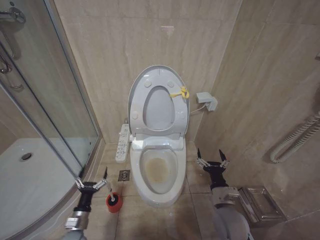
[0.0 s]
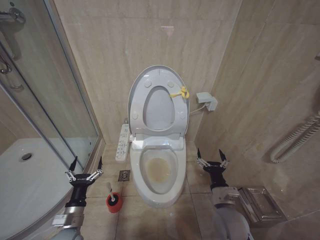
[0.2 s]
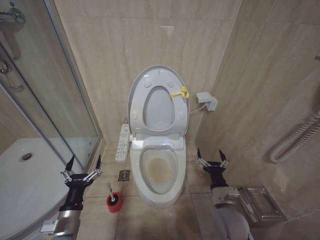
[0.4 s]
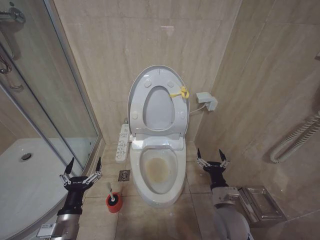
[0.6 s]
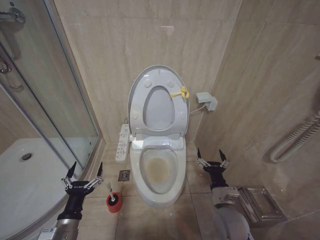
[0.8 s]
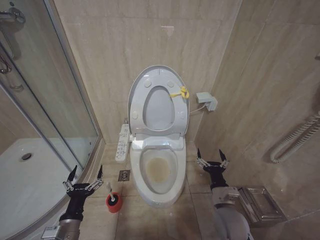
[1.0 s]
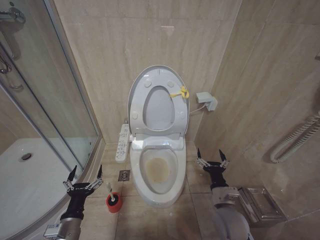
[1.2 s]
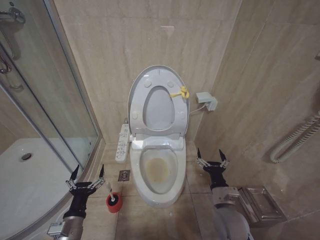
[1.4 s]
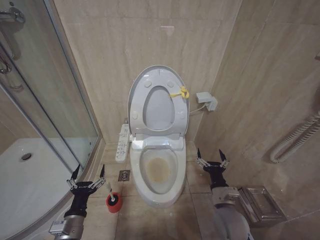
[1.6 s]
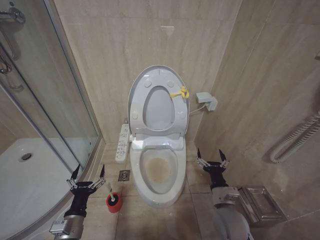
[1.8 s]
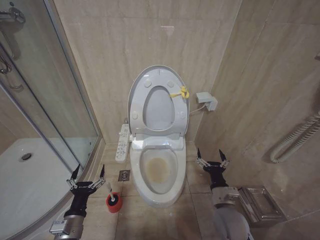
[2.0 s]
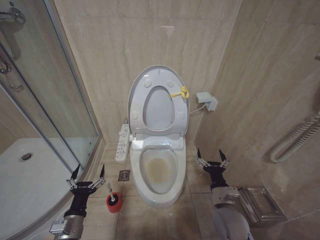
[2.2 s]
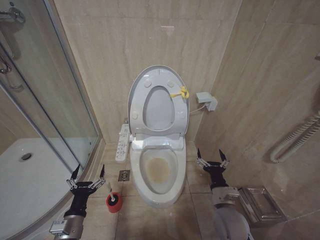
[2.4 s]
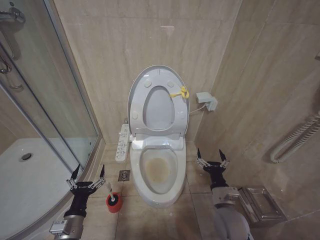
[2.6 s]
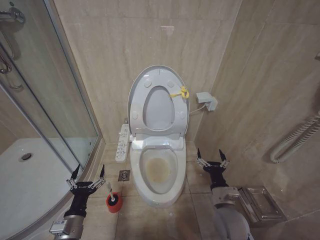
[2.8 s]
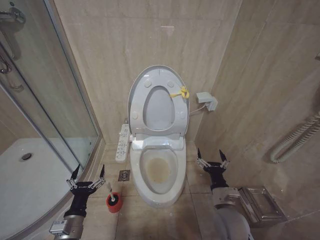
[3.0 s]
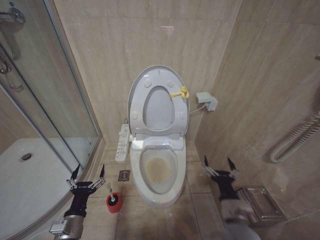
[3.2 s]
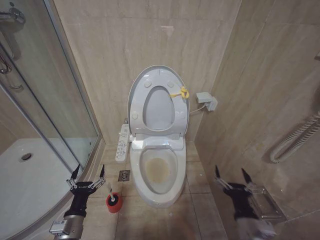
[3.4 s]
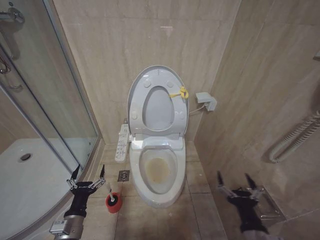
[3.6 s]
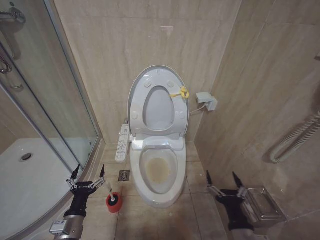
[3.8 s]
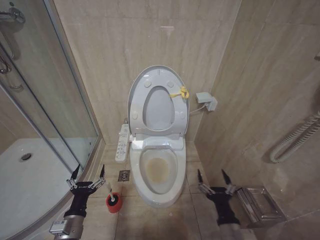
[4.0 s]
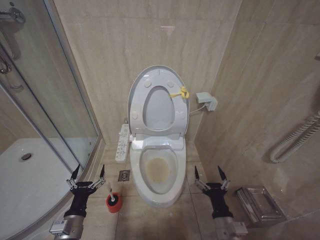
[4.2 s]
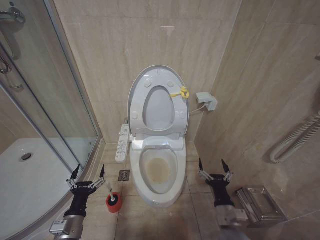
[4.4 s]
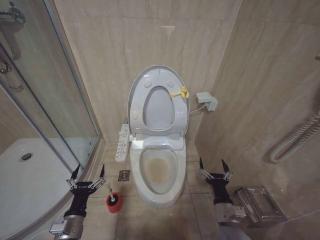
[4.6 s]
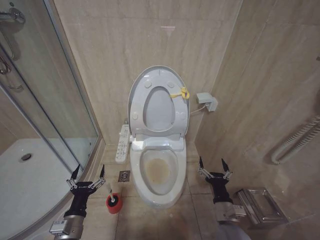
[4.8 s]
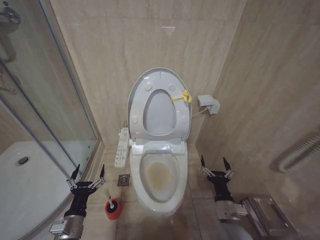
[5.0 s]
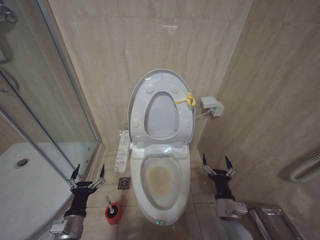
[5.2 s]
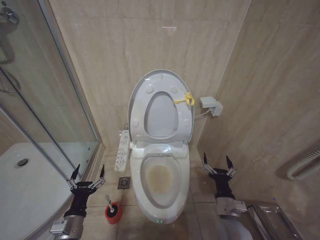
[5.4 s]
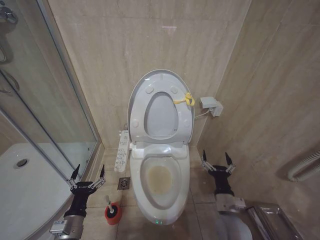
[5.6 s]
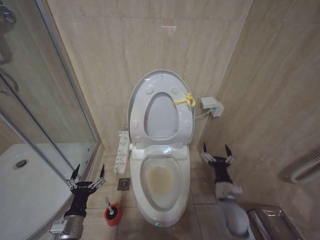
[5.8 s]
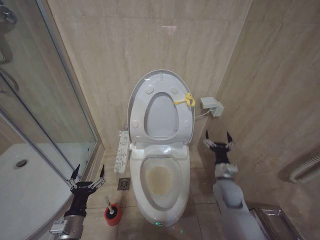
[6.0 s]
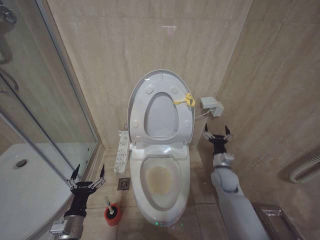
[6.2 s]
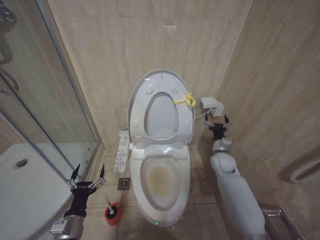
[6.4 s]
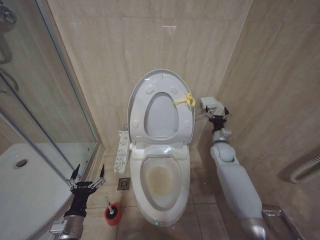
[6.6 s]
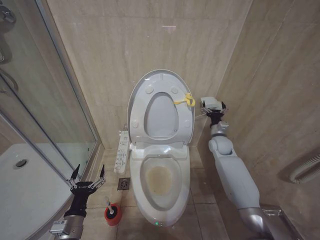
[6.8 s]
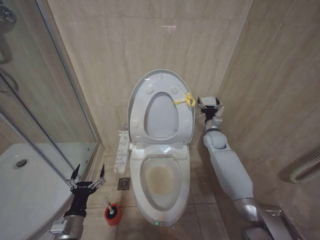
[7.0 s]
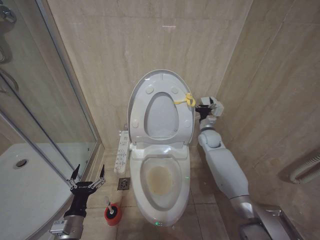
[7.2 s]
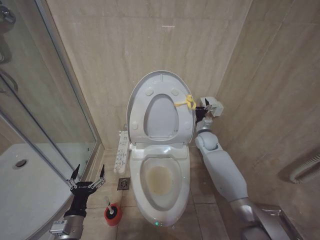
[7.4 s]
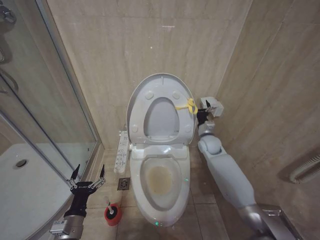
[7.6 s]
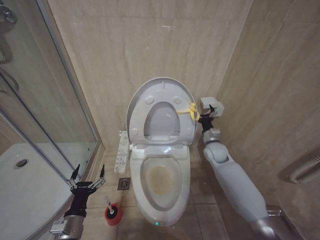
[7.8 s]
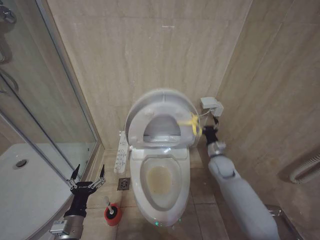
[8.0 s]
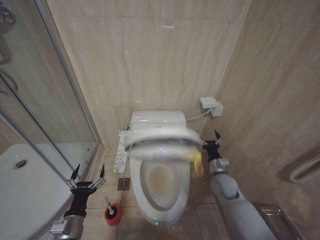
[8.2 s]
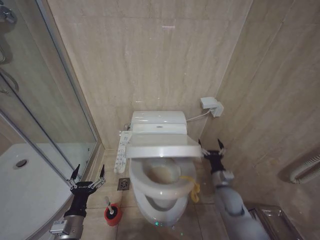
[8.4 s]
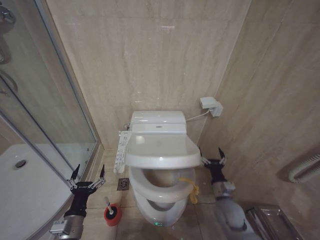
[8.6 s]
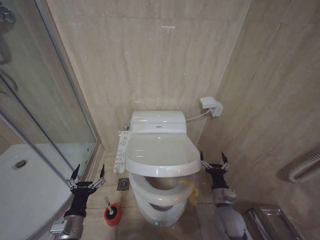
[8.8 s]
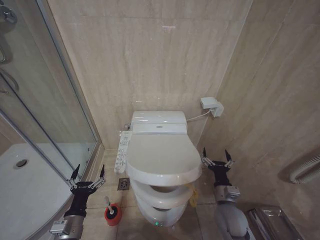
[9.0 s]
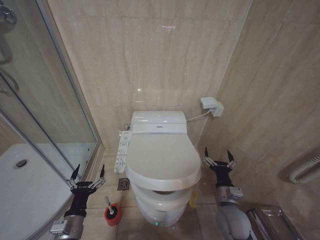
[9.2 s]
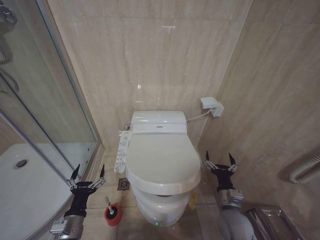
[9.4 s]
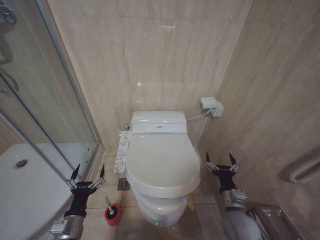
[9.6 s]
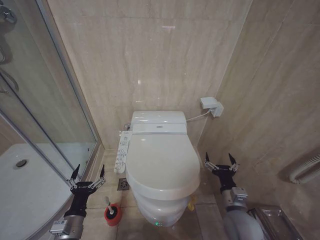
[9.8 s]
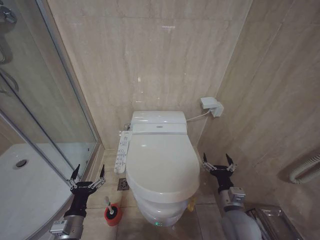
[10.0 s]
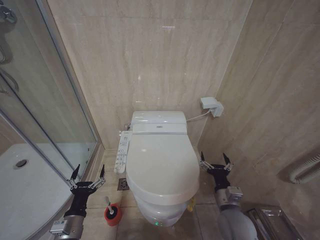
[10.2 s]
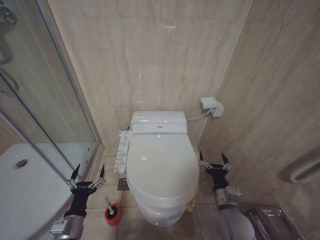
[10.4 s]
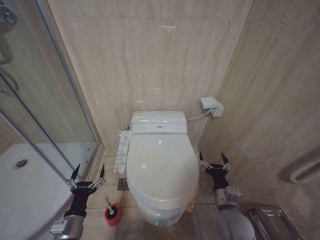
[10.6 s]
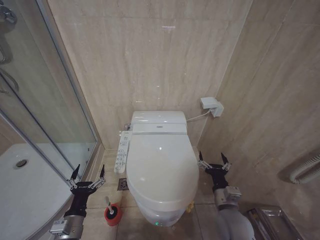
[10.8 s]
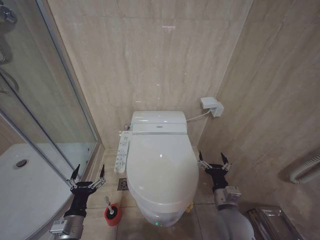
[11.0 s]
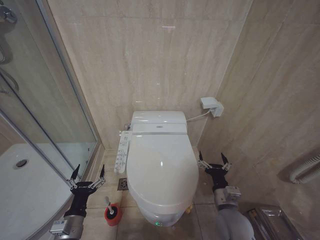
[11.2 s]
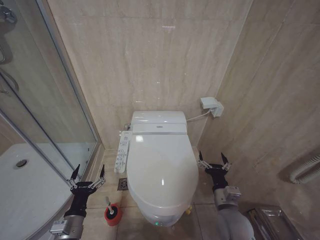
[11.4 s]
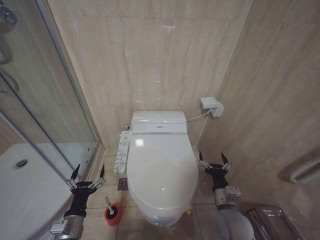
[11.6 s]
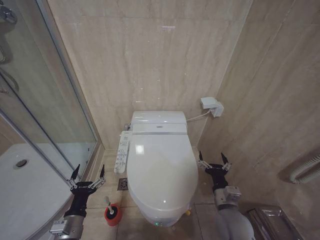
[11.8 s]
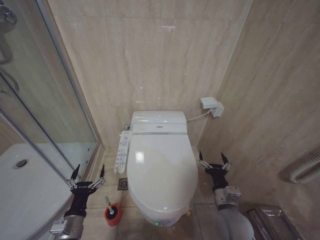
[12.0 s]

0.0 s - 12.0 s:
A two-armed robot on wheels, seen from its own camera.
Task of the whole recording: Open the toilet lid, clean the toilet bowl with a toilet brush, close the toilet lid, and flush.
0.0 s - 1.6 s: The left gripper moves upward and backward, approximately 15 cm.
1.6 s - 3.0 s: Both grippers stay about where they are.
3.0 s - 4.4 s: The right gripper heads backward, covering approximately 5 cm.
4.4 s - 6.0 s: The right gripper is displaced forward by some 15 cm.
6.0 s - 7.6 s: The right gripper goes roughly 25 cm forward and upward.
7.6 s - 9.0 s: The right gripper travels backward and downward by approximately 30 cm.
9.0 s - 10.4 s: The right gripper changes place by approximately 5 cm.
10.4 s - 12.0 s: The two grippers keep their place.

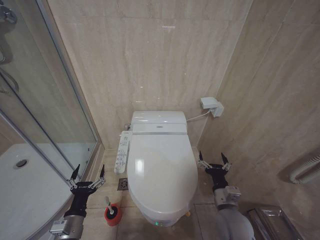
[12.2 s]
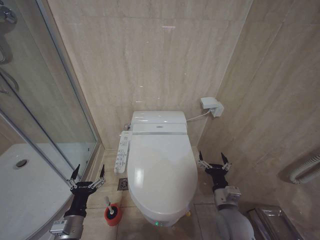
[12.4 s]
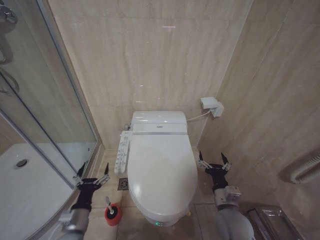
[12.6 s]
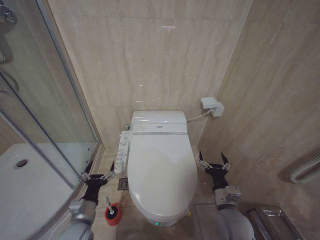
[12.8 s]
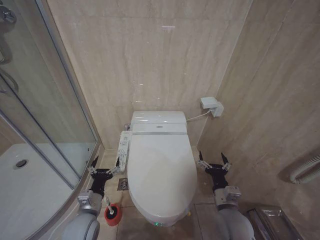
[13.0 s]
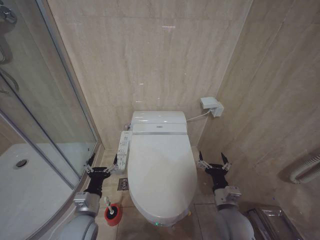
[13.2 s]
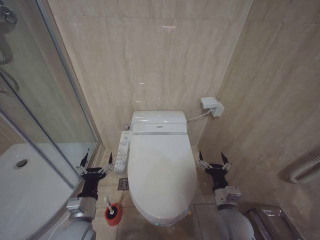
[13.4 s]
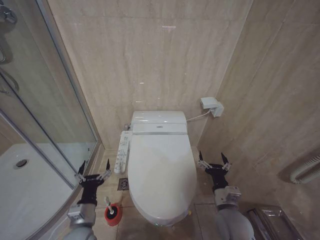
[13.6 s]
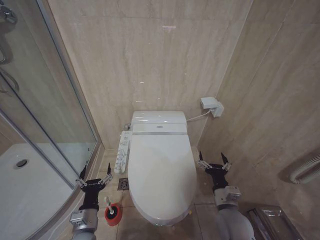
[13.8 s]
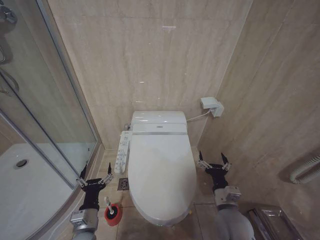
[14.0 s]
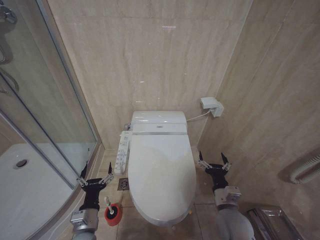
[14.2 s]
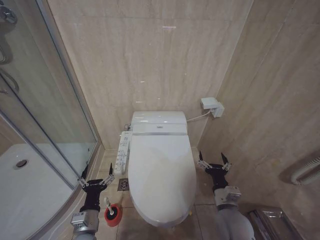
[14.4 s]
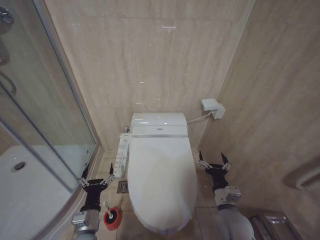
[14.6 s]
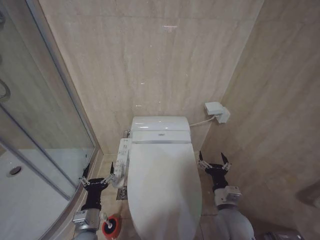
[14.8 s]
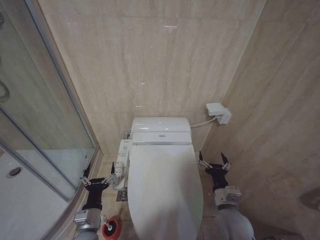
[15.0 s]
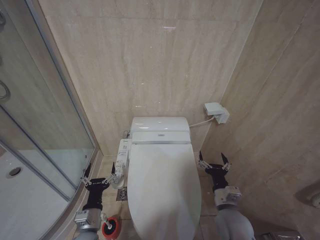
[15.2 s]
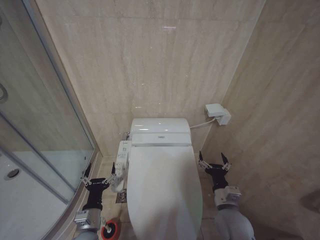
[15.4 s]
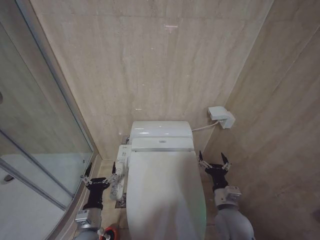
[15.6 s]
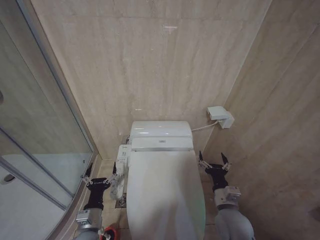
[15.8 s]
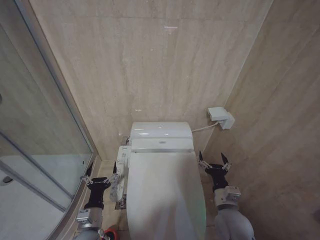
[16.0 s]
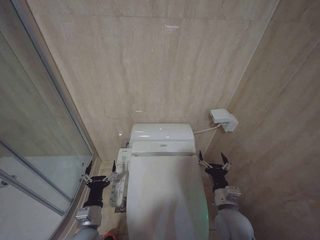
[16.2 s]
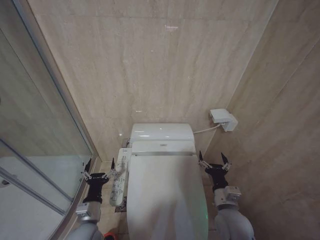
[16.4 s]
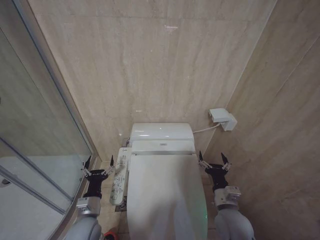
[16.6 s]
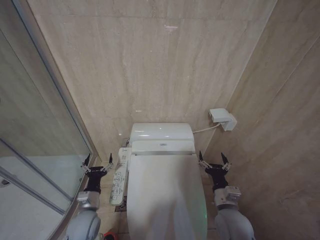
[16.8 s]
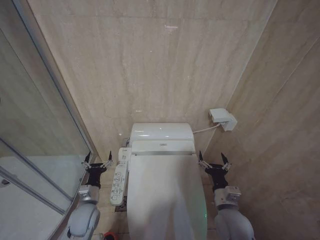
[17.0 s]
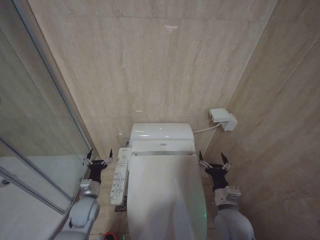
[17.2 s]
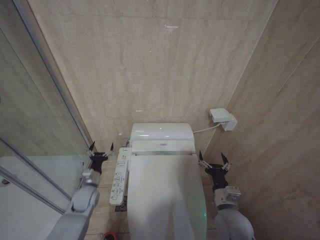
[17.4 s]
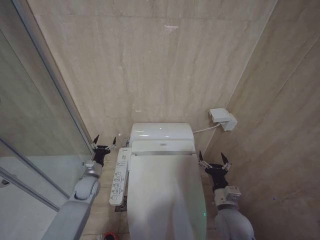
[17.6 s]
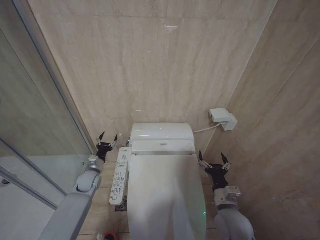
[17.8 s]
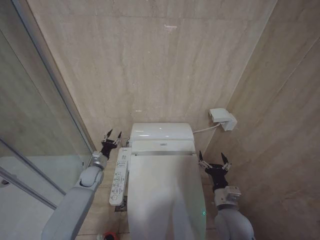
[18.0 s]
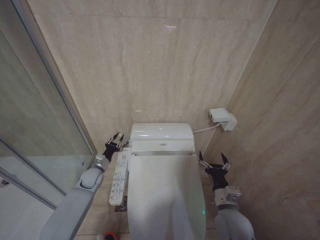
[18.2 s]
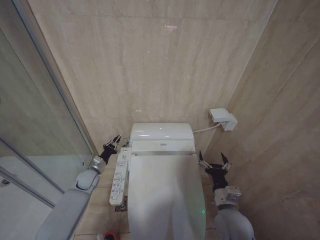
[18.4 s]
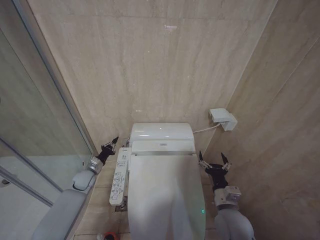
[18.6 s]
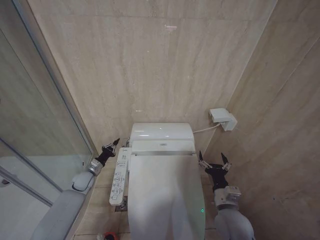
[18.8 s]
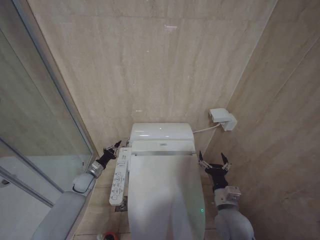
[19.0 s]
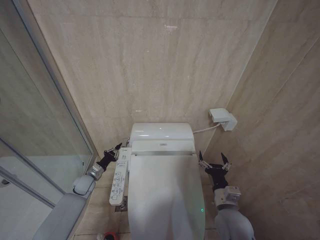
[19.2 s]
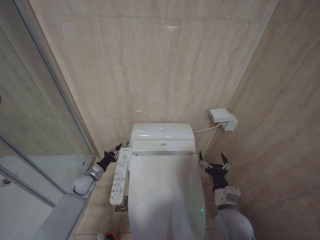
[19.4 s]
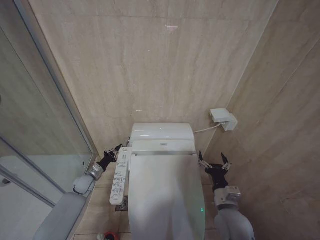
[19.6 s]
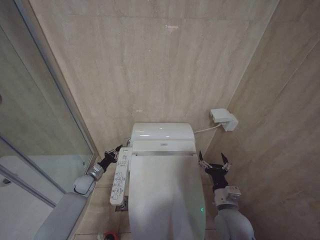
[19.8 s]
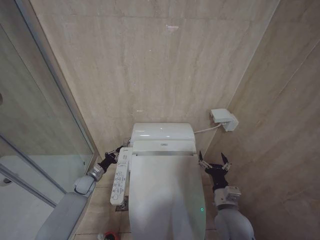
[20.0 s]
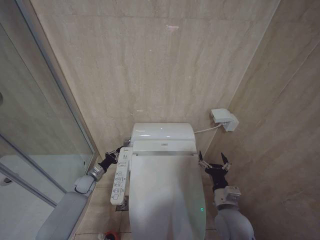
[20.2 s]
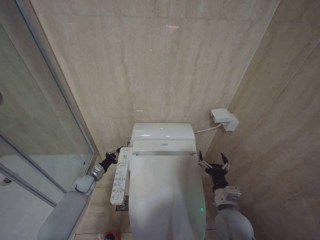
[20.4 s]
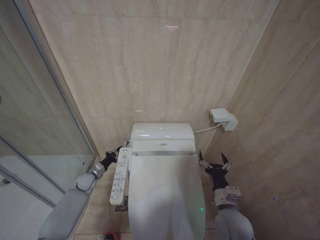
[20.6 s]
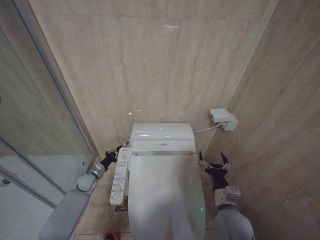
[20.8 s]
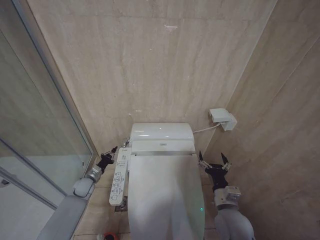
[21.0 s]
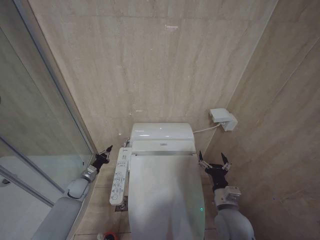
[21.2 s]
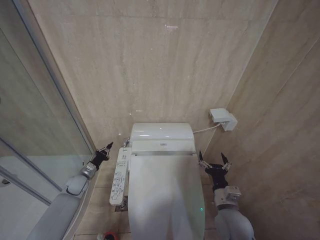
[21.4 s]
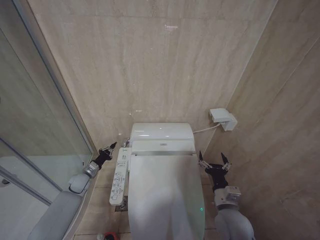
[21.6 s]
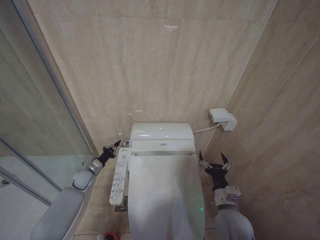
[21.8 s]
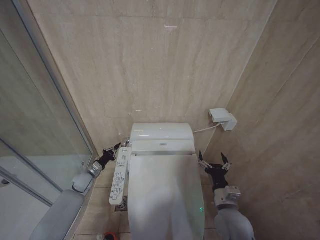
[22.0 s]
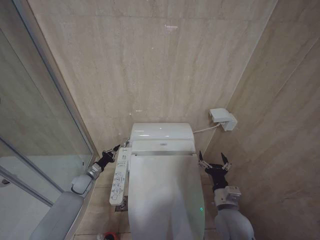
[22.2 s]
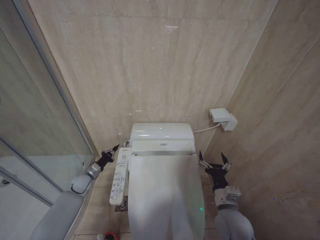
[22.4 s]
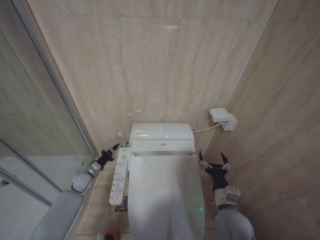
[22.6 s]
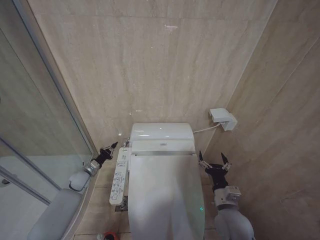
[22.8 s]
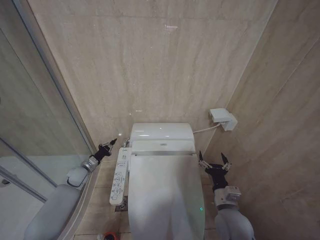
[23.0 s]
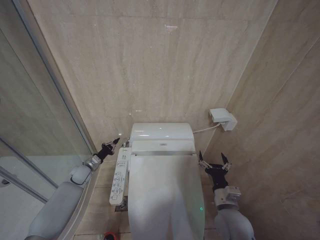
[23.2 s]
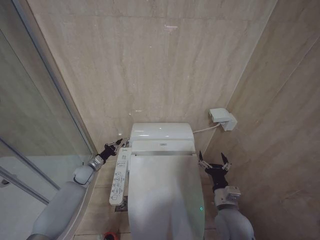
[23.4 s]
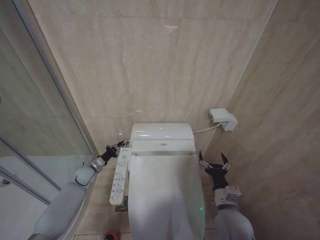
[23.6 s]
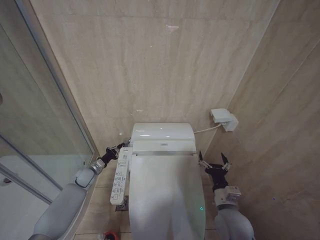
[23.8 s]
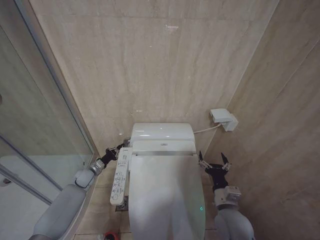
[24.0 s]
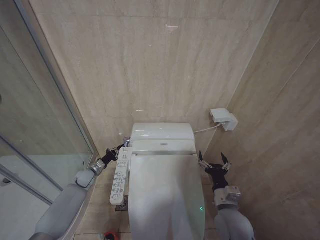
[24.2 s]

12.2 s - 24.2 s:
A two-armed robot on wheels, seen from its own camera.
Task of the whole recording: Open the toilet lid, clean the toilet bowl with a toilet brush, close the toilet lid, and flush.
13.8 s - 15.2 s: The two grippers keep their place.
15.2 s - 16.6 s: The grippers move only a little.
16.6 s - 18.2 s: The left gripper moves forward, approximately 20 cm, and closes its fingers.
18.2 s - 19.8 s: The left gripper goes roughly 10 cm to the left and downward, and closes its fingers.
22.6 s - 24.2 s: The grippers move only a little.
